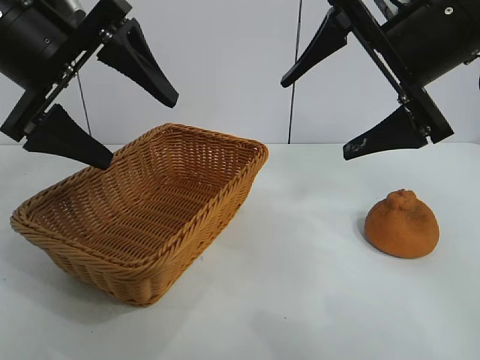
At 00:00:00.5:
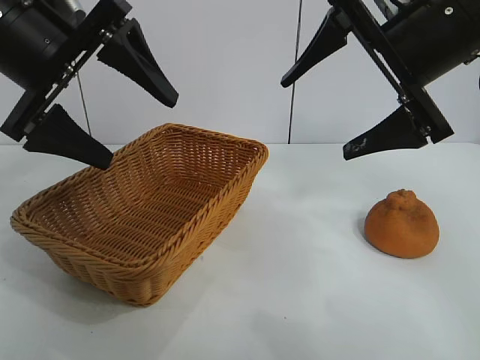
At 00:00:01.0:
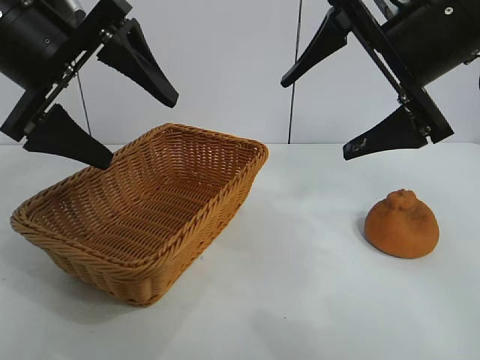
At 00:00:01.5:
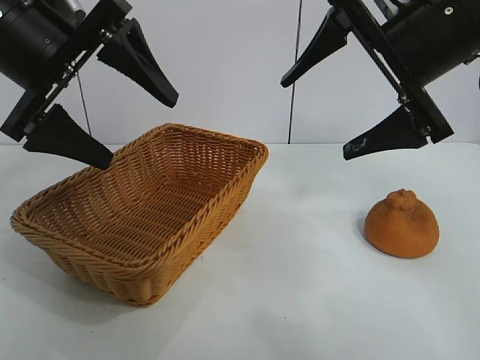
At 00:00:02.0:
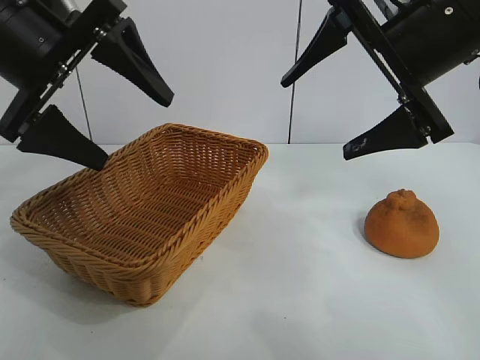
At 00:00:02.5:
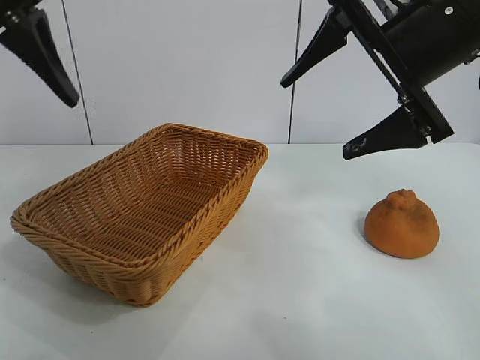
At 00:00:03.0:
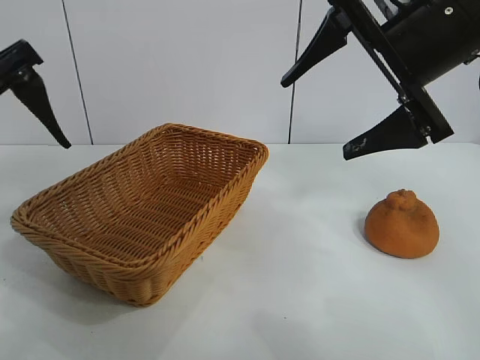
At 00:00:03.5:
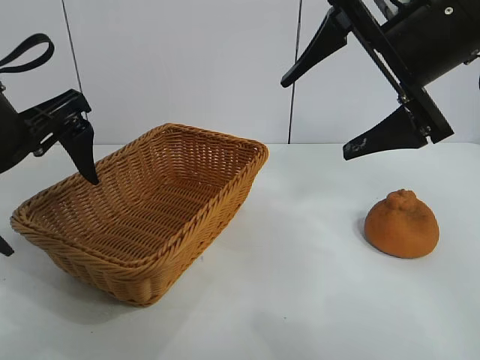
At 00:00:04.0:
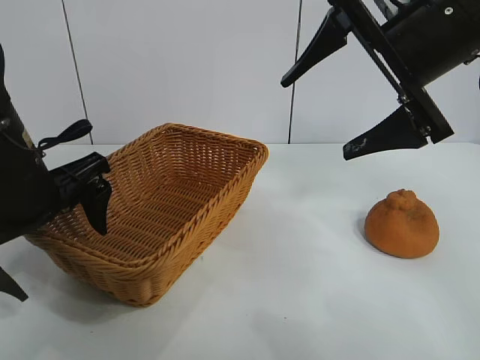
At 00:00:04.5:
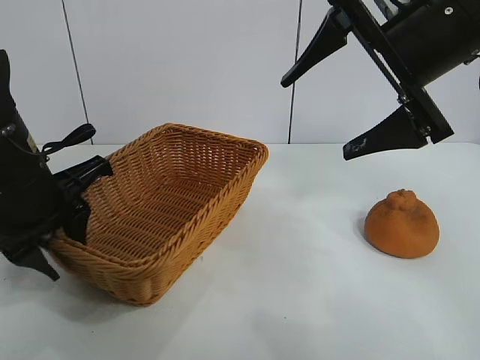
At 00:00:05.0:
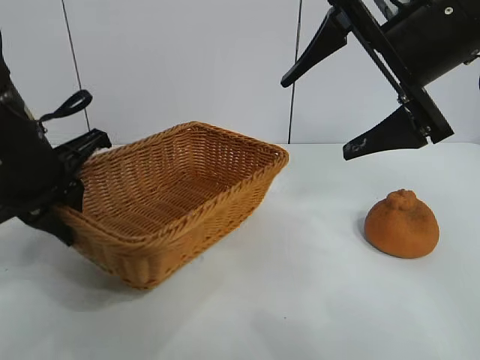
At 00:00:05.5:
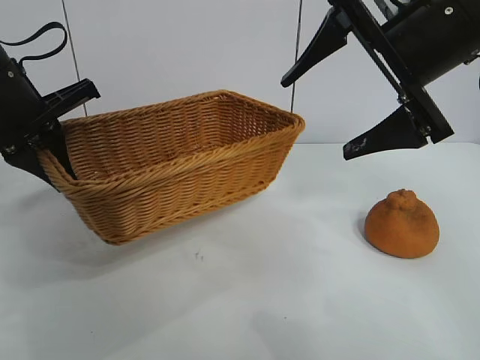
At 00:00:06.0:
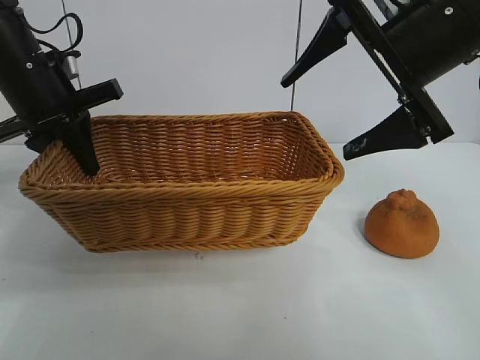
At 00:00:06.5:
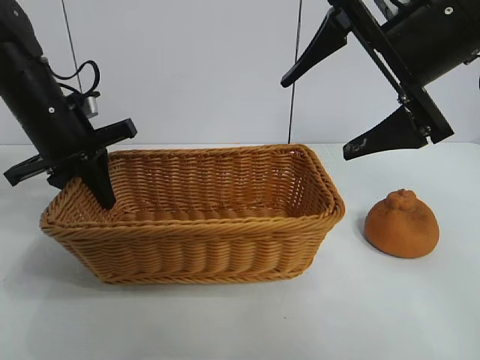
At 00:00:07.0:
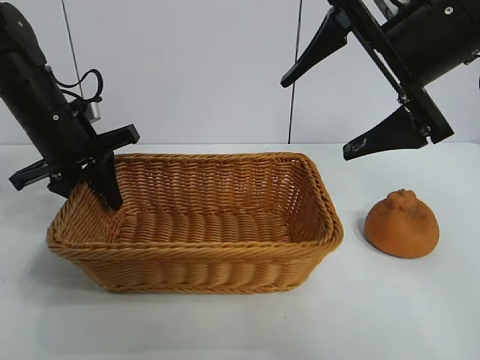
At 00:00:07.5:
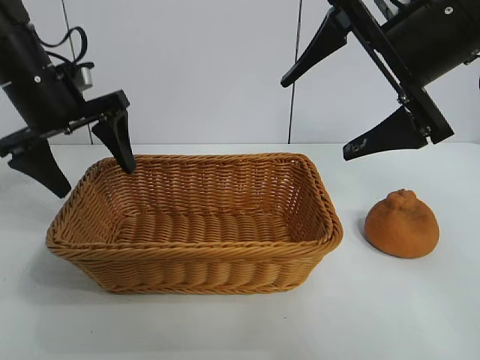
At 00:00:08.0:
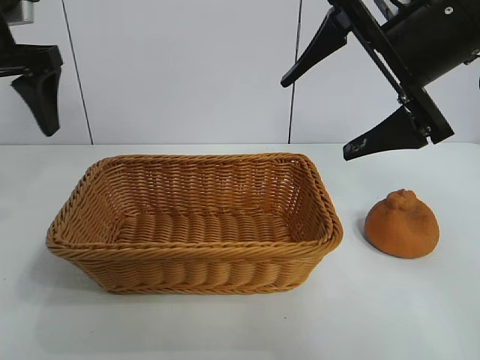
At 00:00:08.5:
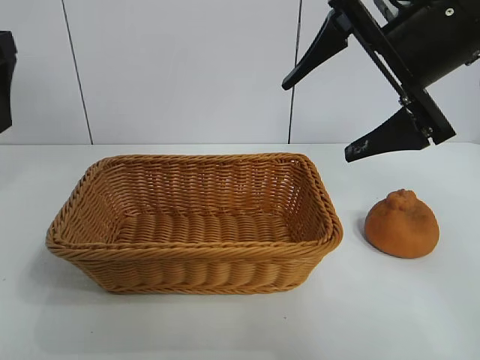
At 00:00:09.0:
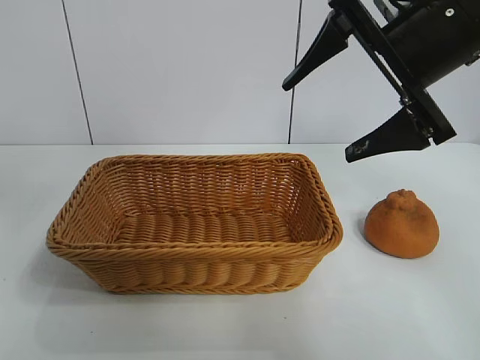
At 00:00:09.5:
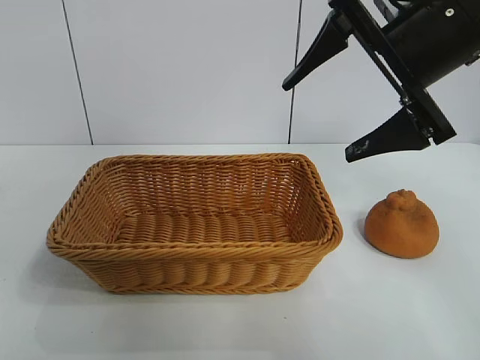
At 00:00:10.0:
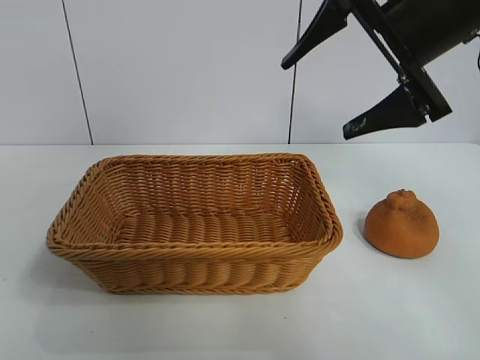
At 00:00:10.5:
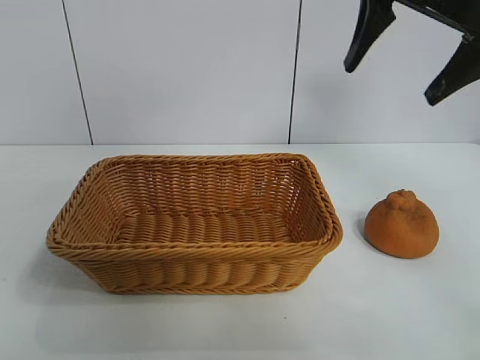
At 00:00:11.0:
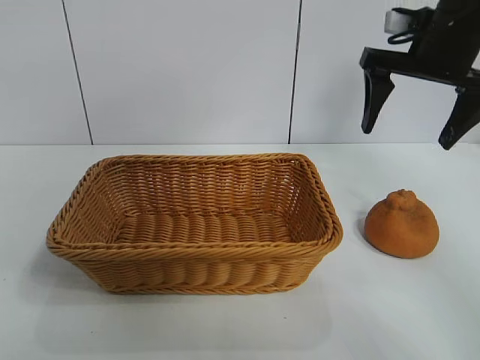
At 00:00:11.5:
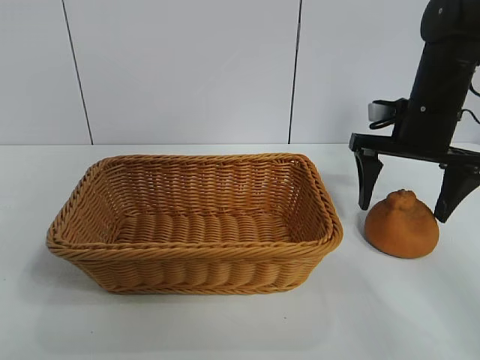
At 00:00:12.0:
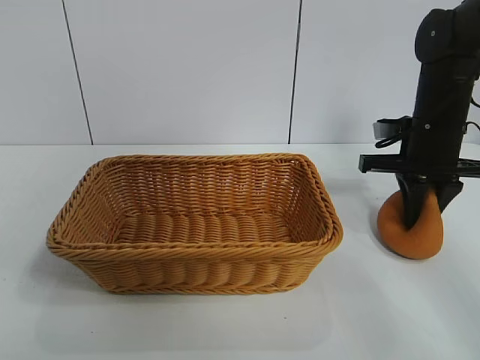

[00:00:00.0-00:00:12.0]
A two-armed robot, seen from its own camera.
Task of the whole recording: pick up the orange and put it into the basket.
Step, 00:00:02.0 to 00:00:04.5: Grasp the basket with left gripper.
Step, 00:00:05.0 to 00:00:07.0: Place the basket in the center of view with left gripper.

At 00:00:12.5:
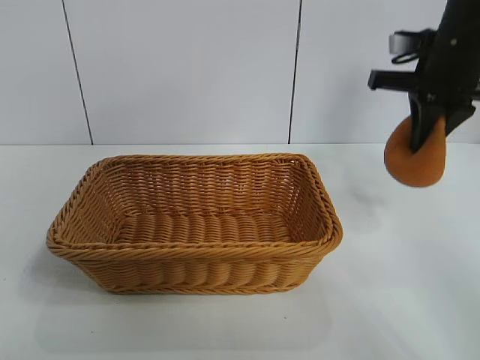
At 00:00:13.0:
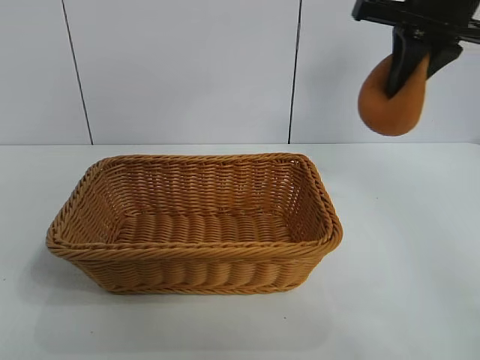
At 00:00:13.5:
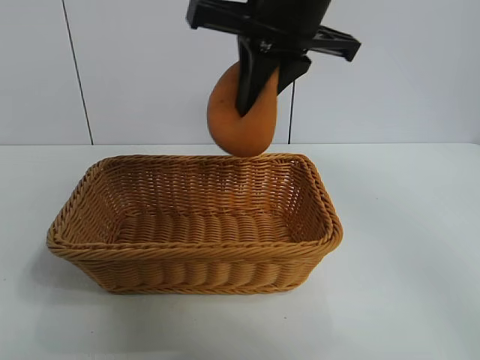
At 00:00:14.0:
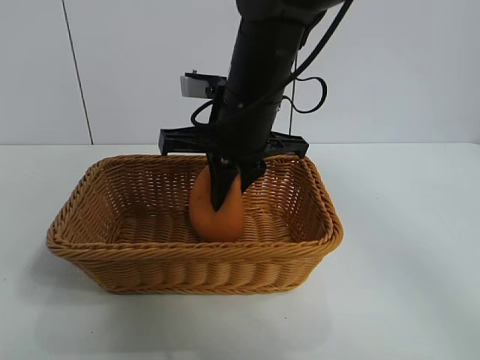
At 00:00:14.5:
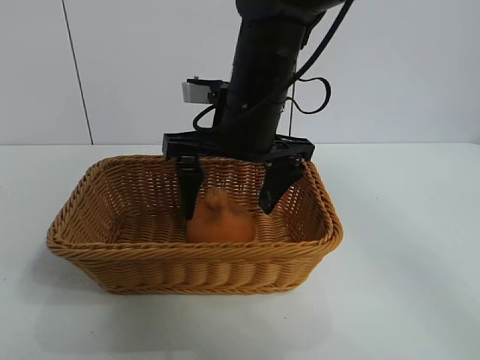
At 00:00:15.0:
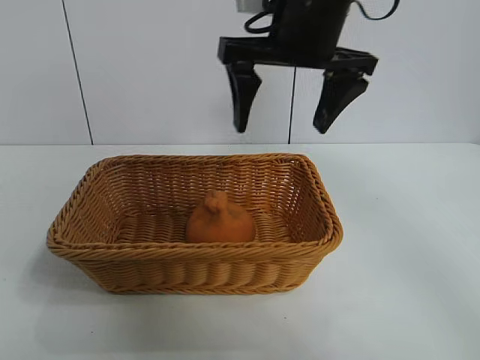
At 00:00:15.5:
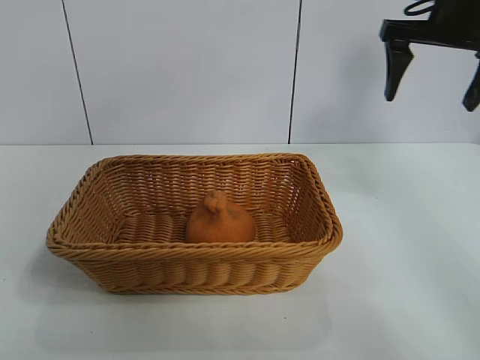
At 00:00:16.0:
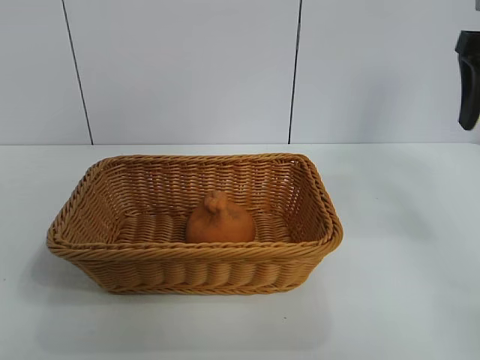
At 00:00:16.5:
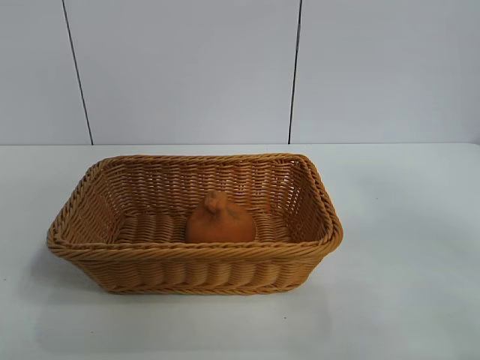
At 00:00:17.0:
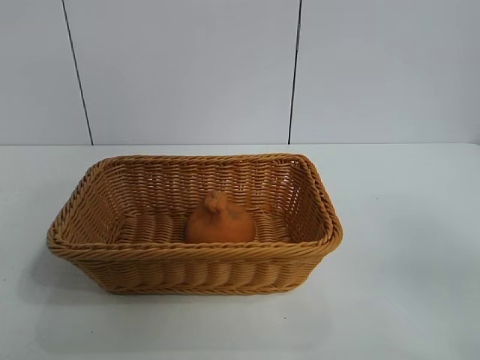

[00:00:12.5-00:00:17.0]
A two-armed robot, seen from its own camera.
Task of the whole recording: pick up the orange and put it into the basket.
Step, 00:00:12.5 to 00:00:14.5: Place the orange in the basket with right gripper.

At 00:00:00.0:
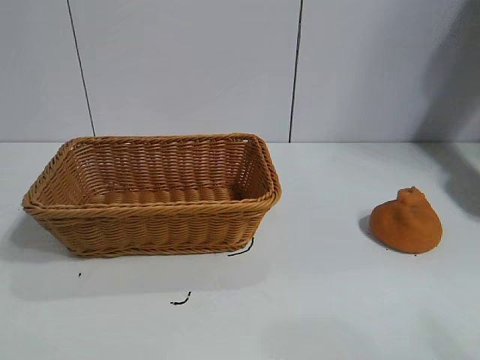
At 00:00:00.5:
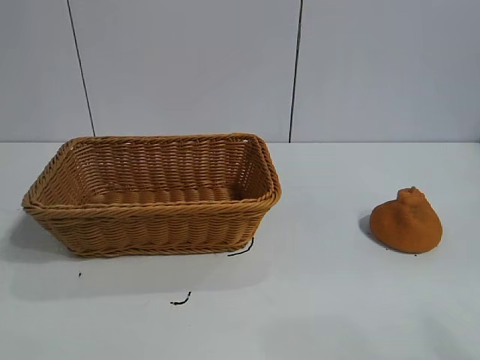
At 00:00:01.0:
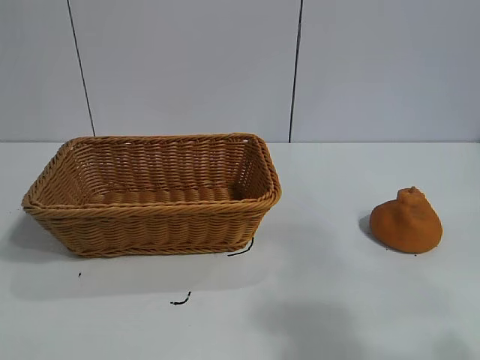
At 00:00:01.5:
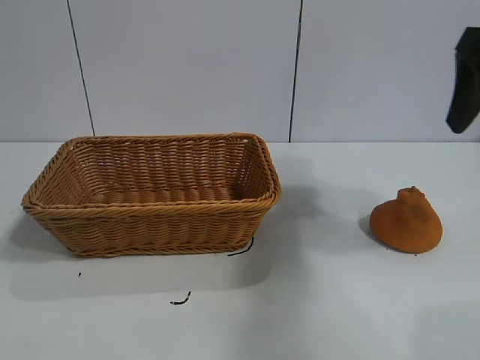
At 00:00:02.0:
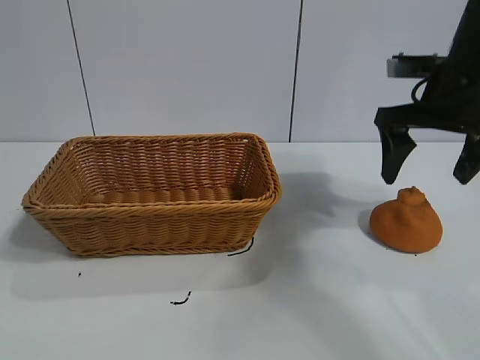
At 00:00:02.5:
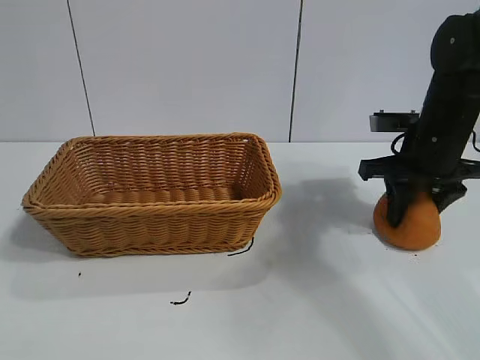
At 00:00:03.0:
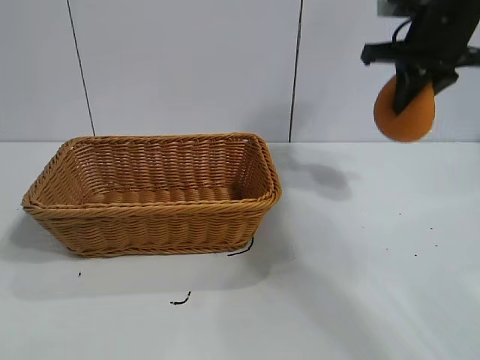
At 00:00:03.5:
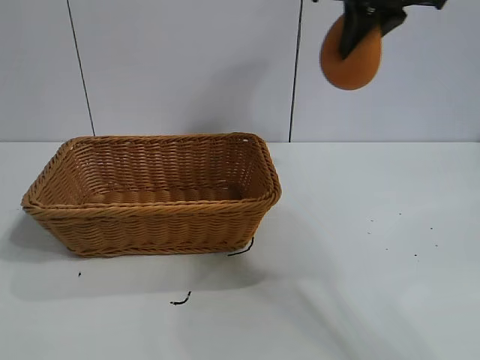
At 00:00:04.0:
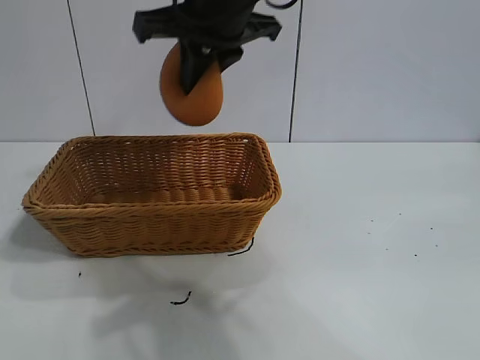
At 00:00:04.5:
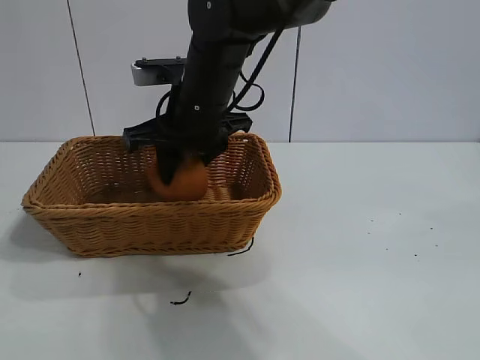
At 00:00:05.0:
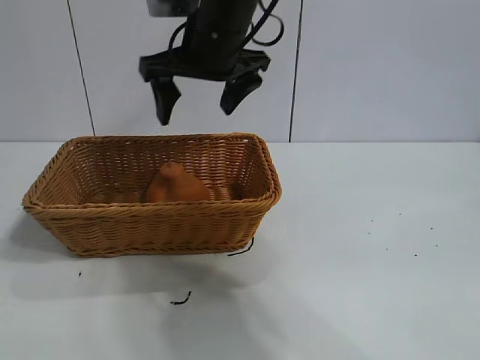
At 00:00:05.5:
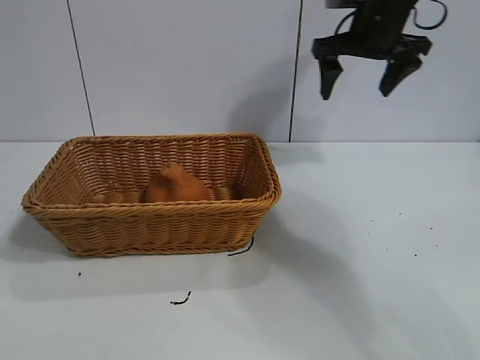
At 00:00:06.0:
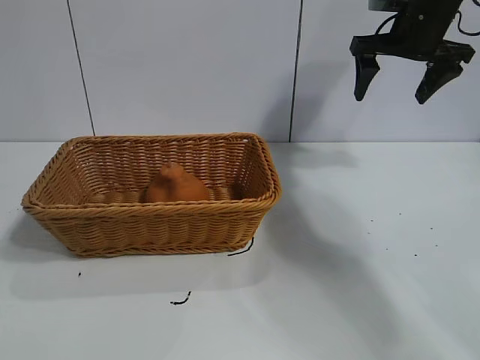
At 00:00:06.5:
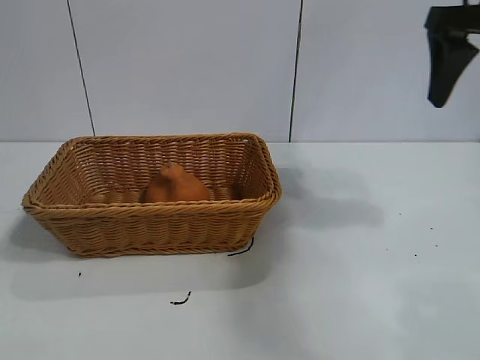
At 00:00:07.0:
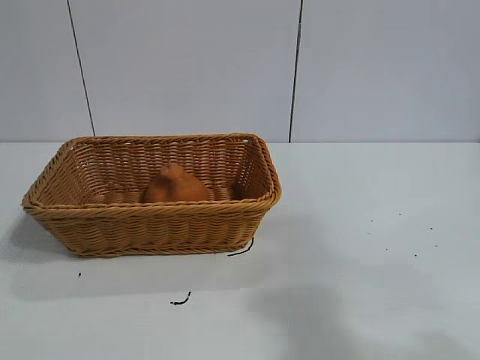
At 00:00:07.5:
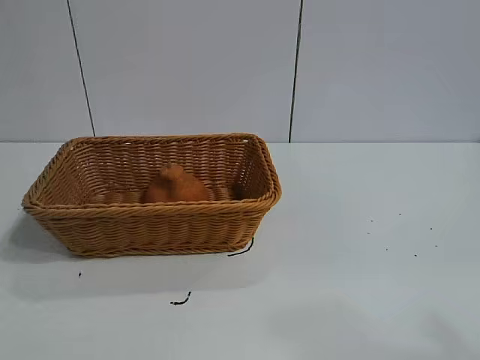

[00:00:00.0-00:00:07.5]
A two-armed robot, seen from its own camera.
Task of the whole recording: pick up the orange and put it into the basket.
Step, 00:00:01.0 to 00:00:02.5: Grasp the orange with right gripper.
Step, 00:00:03.0 to 00:00:04.5: Place the orange in the basket with right gripper.
